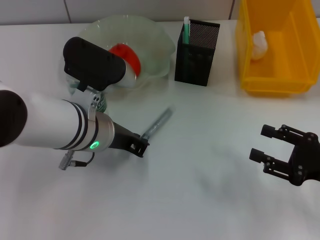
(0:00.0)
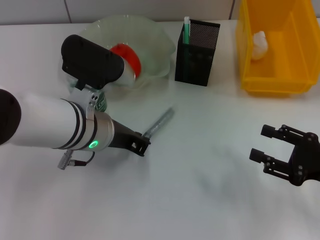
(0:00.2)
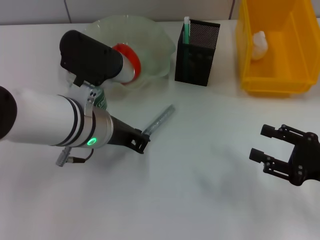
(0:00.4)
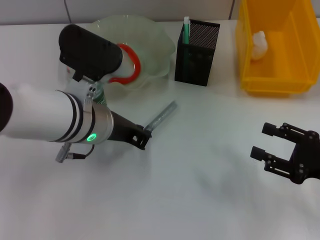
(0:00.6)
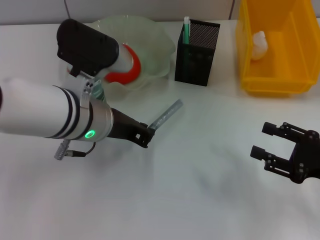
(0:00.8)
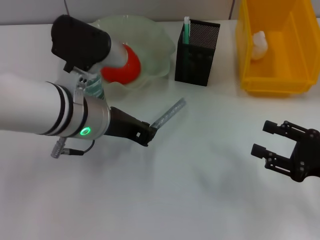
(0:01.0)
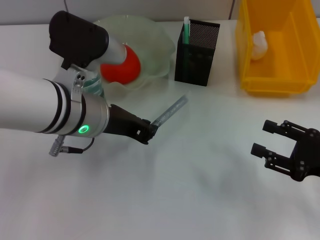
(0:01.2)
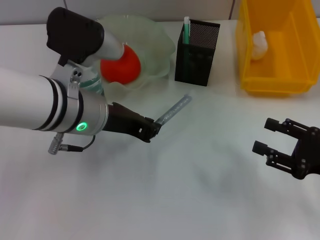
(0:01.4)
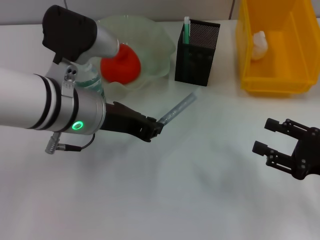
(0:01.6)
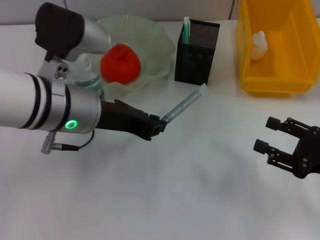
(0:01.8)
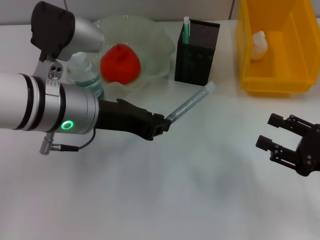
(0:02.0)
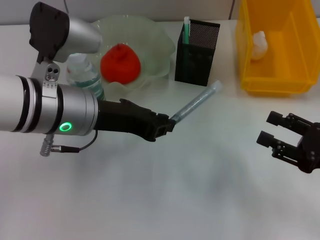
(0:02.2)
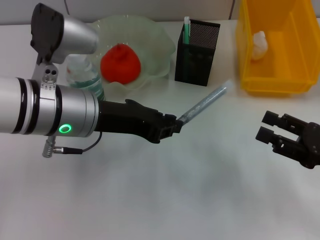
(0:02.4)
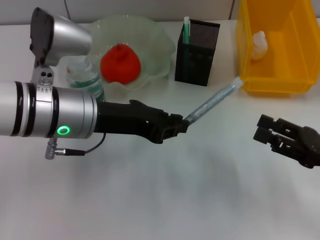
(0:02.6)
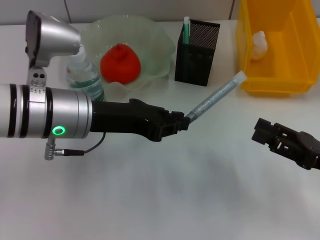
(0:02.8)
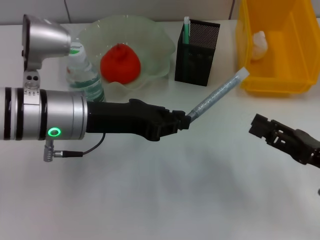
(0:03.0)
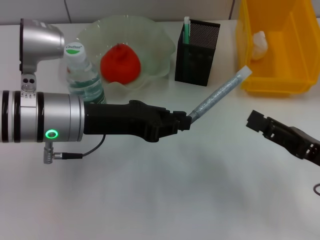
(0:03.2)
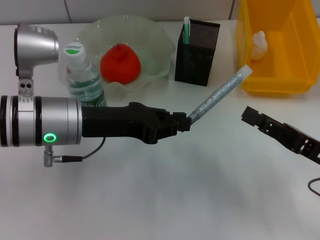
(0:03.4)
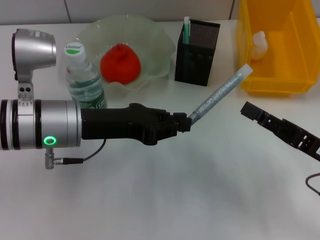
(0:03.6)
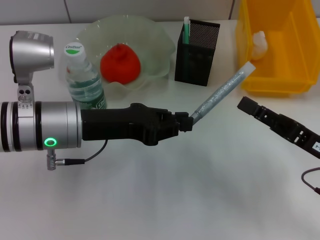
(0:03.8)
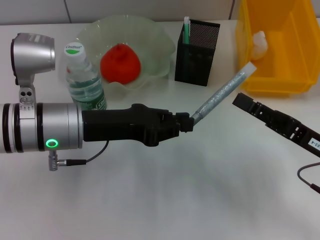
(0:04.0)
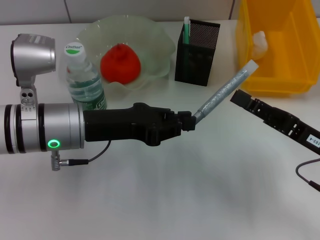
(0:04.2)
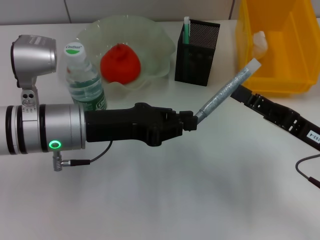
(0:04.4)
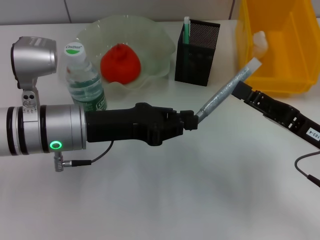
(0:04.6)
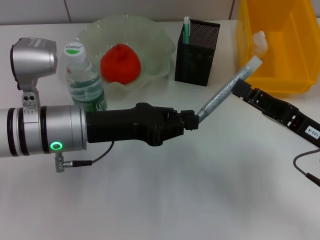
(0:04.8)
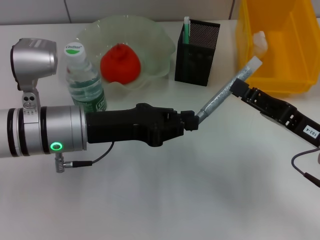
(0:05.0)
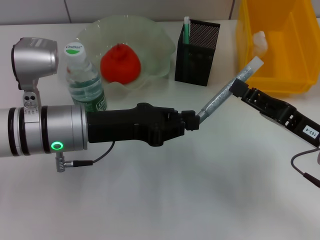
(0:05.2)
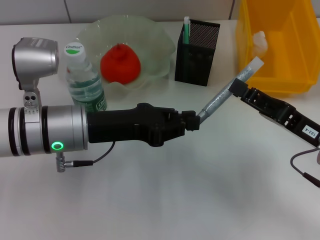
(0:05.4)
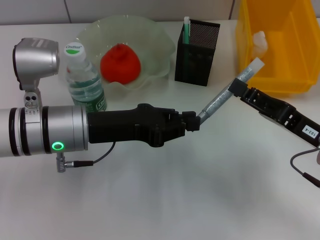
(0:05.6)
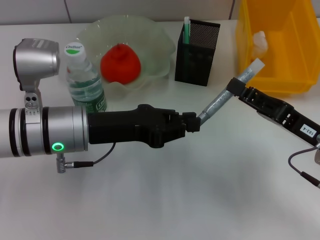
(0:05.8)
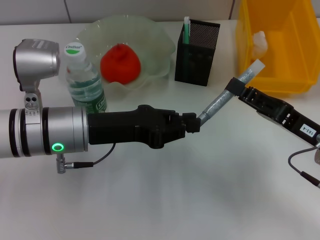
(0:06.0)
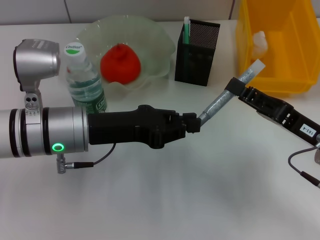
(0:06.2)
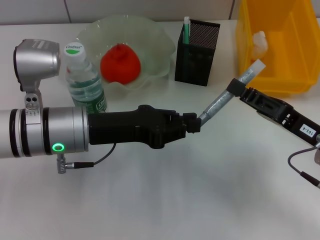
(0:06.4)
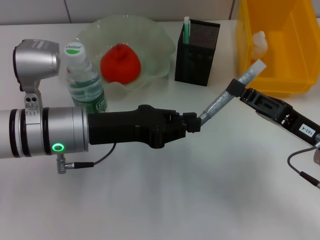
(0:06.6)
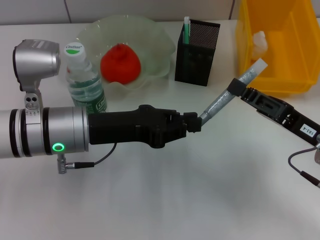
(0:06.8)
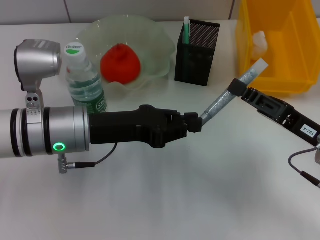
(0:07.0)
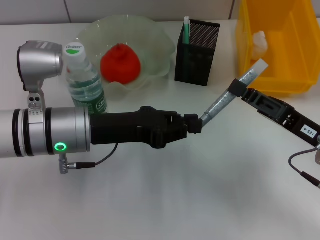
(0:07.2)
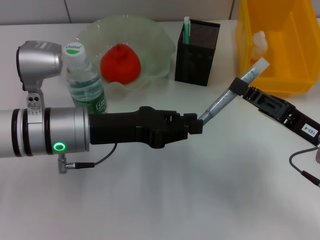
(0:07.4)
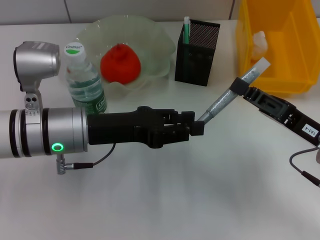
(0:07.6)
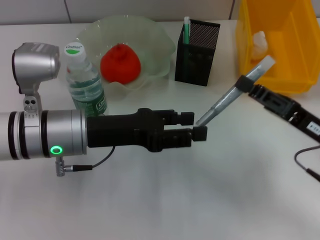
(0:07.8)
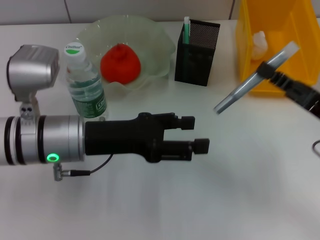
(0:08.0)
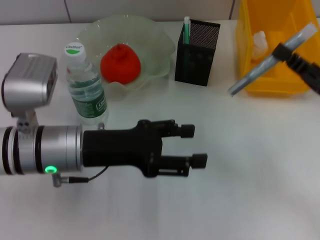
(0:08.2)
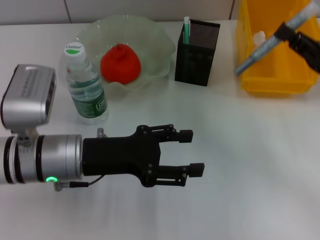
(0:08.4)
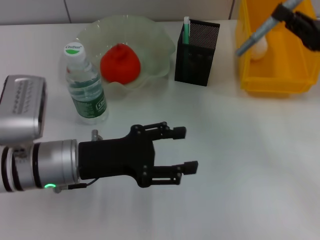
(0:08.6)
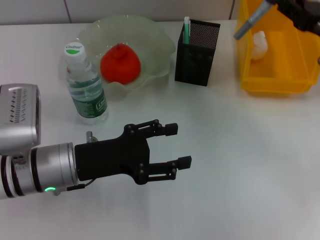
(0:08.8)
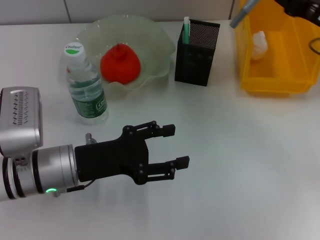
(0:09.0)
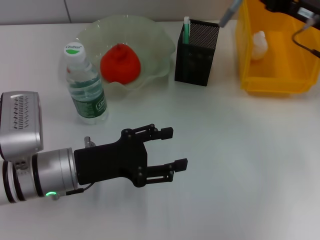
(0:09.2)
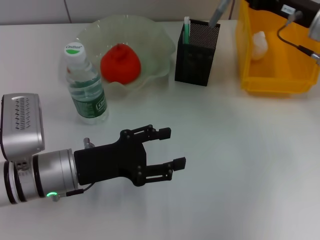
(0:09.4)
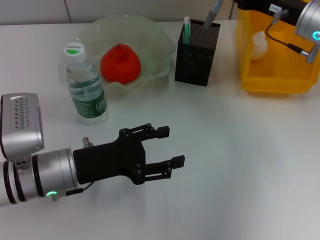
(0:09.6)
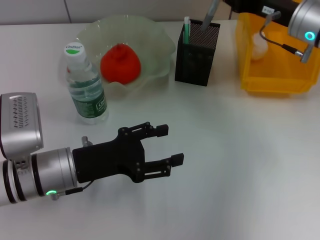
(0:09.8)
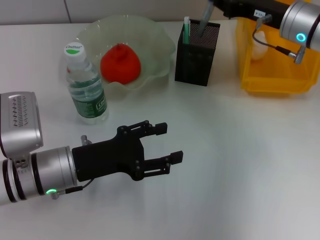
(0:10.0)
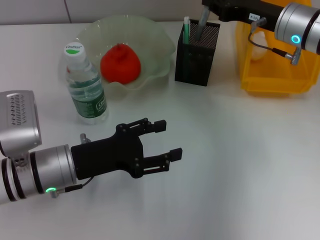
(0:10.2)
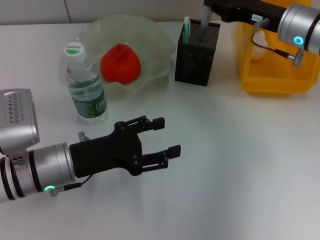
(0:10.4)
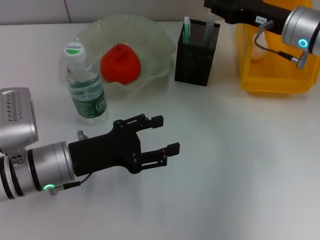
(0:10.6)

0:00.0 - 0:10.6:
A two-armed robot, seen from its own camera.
Step, 0:00.0 - 0:07.4: Pass the gray glue from the left hand to the right hand.
0:00.0 - 0:01.6: The grippers stay close to where they were, moving slightly.
0:03.0 - 0:04.6: The grippers move only a little.
0:04.6 - 0:06.0: The right gripper closes up.
0:06.0 - 0:07.6: The right gripper closes.
0:07.6 - 0:09.0: The right gripper is displaced forward and upward by roughly 15 cm, while the left gripper heads downward, covering some 5 cm, and opens up.
0:09.0 - 0:10.6: The right gripper is displaced to the left by about 5 cm.

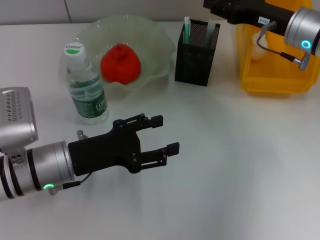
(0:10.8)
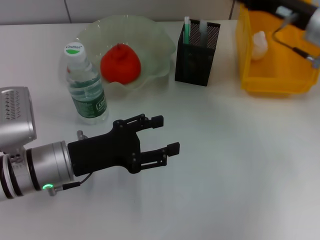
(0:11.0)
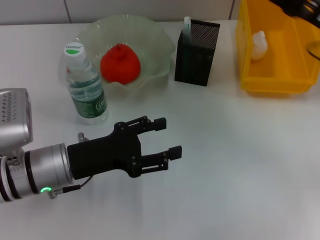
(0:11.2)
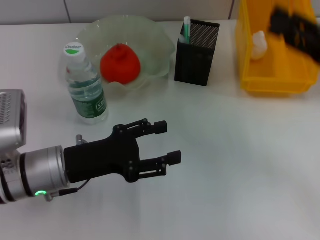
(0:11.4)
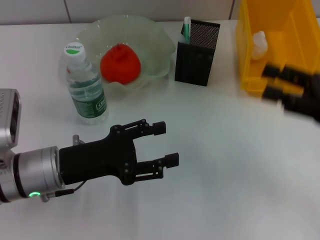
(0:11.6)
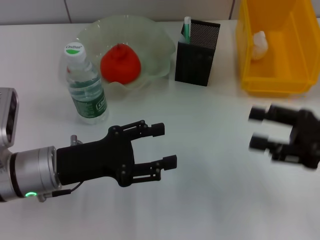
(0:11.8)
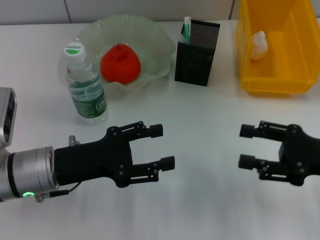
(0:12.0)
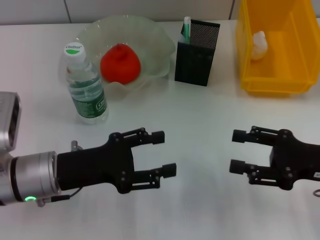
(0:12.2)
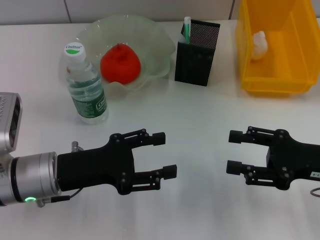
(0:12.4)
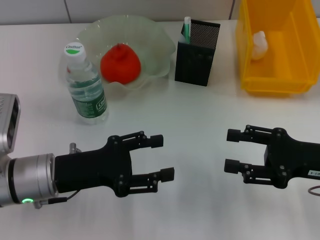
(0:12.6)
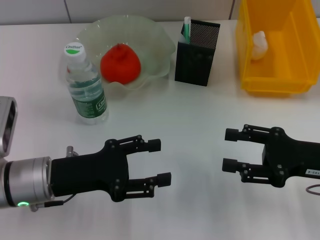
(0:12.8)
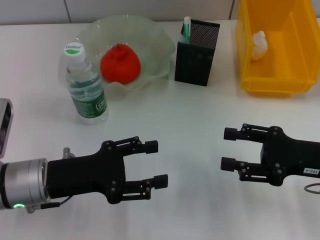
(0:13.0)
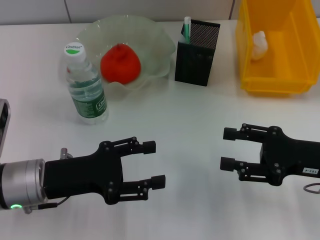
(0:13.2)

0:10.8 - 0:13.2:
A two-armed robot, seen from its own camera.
0:10.8 - 0:12.0: The right gripper heads backward, covering approximately 15 cm, and opens its fingers.
0:12.0 - 0:13.2: The grippers make only small movements.

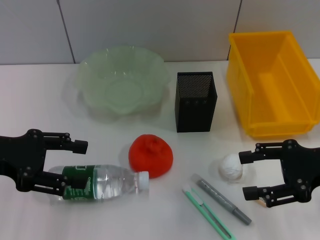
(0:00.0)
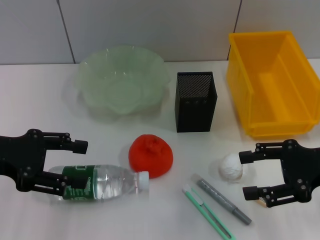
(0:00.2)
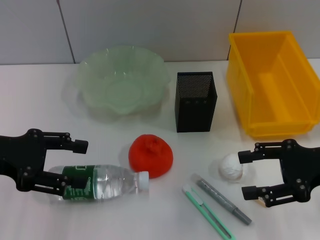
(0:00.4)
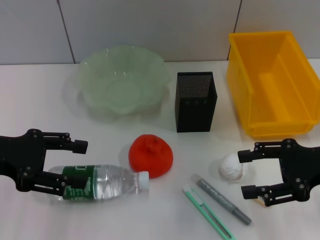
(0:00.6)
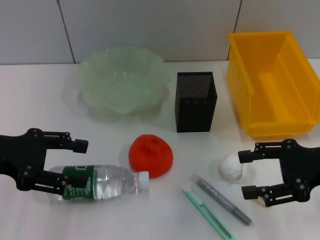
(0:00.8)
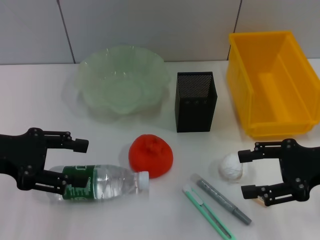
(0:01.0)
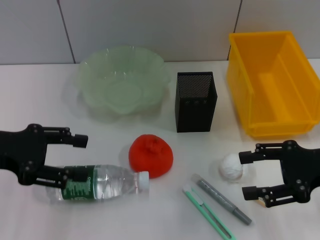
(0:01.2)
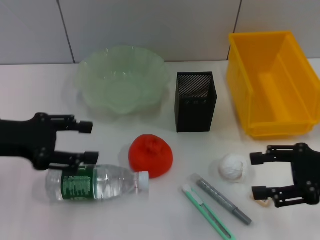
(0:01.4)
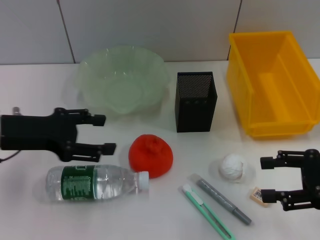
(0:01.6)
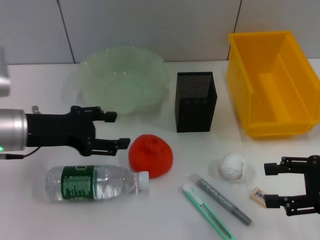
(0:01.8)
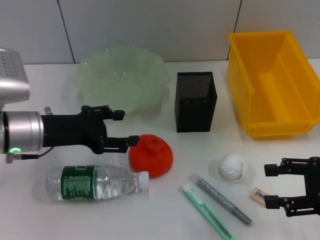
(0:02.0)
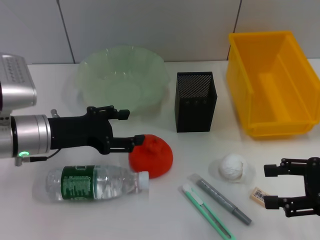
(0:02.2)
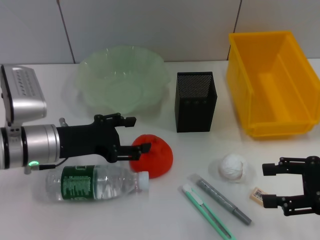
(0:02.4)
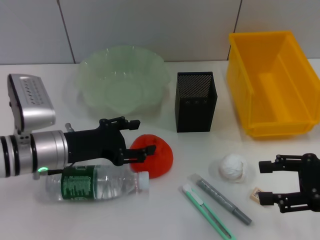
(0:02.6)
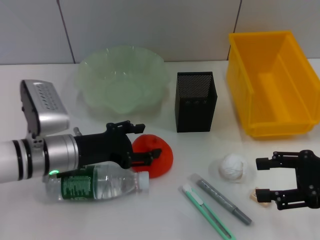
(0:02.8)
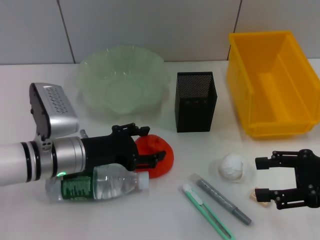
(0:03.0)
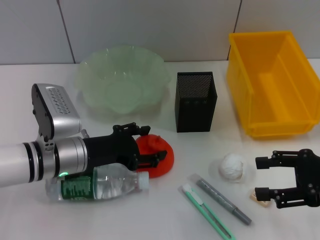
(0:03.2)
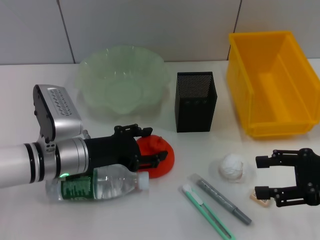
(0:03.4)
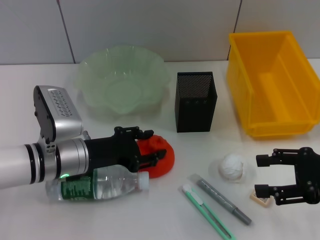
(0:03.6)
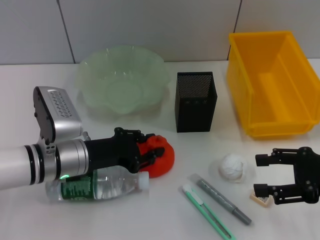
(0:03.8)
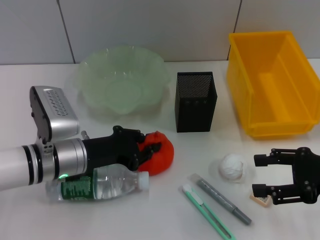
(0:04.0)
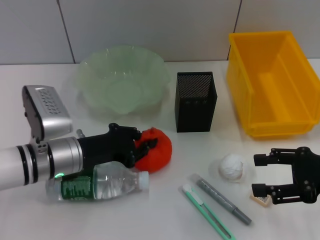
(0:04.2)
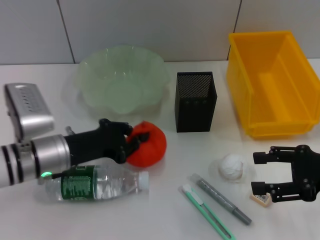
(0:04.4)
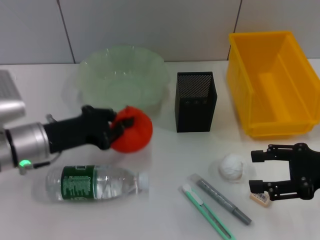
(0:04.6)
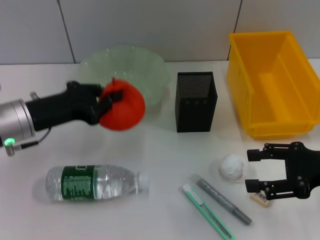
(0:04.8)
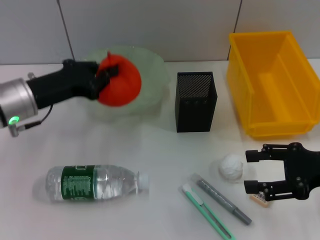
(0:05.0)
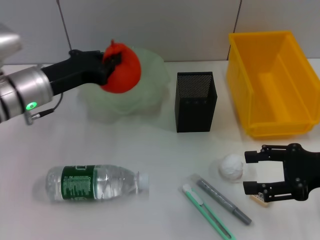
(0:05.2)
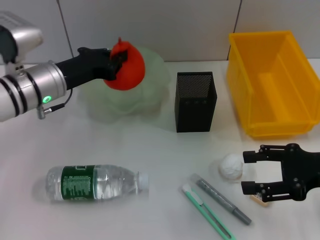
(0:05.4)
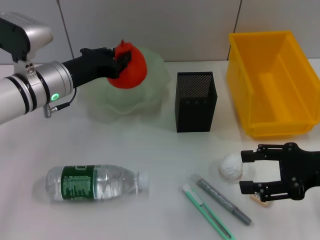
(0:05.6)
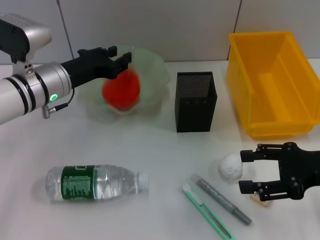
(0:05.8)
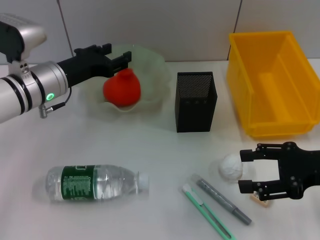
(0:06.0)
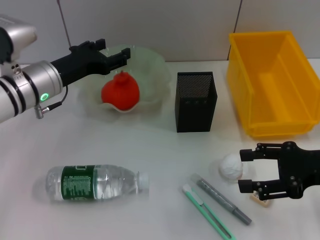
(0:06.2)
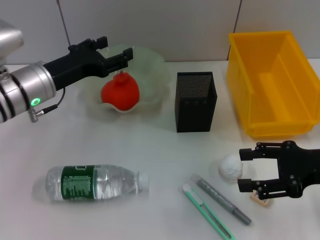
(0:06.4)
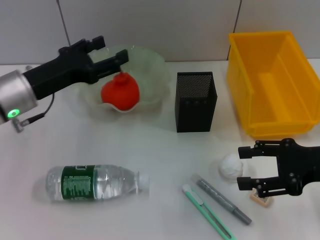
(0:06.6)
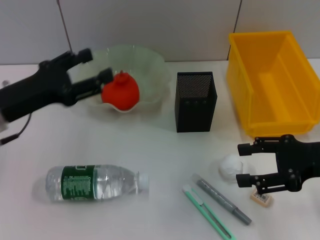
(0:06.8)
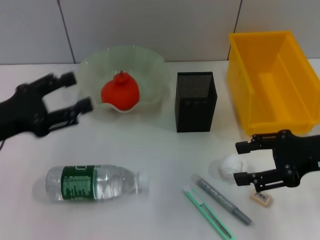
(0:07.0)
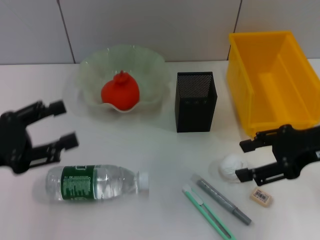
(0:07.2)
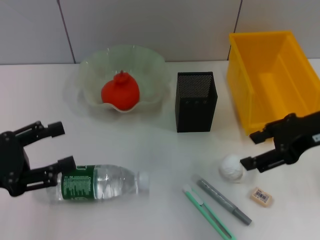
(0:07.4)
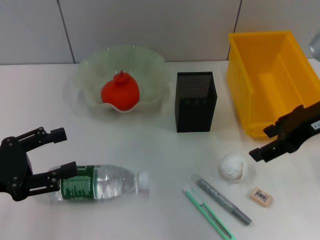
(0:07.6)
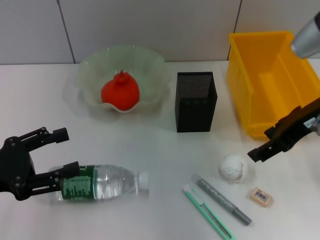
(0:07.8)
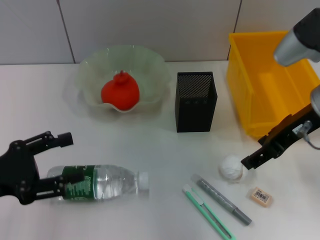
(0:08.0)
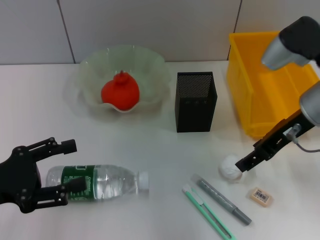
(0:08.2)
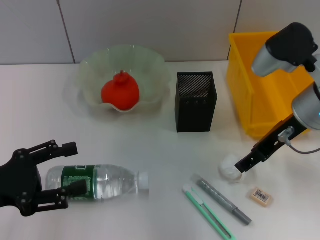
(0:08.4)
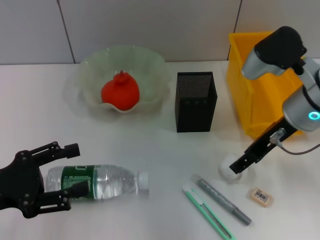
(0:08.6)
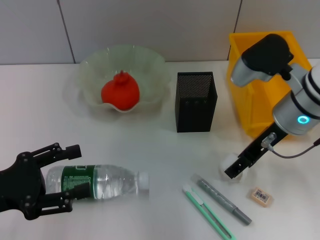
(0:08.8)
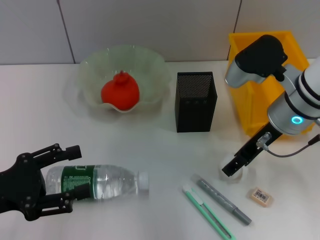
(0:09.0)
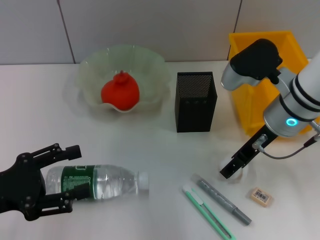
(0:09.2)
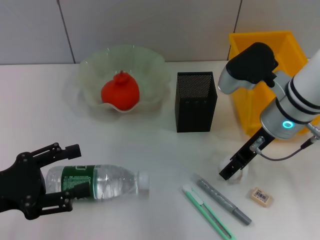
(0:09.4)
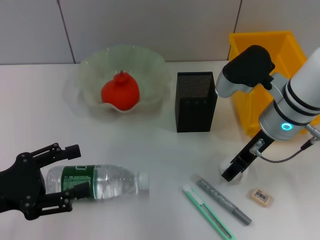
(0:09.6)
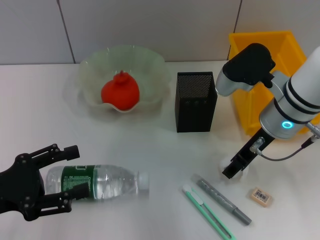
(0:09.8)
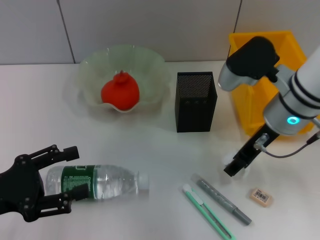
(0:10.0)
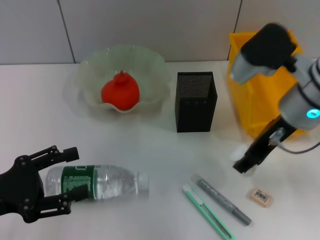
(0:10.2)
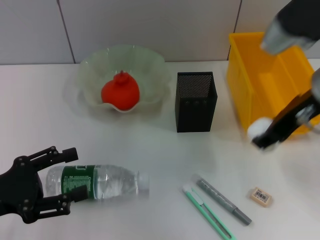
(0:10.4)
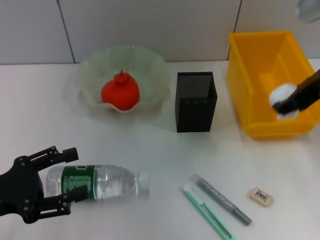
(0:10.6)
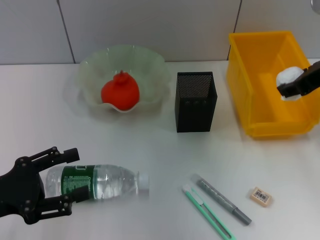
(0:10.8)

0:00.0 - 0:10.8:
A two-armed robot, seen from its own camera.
Step, 0:00.0 - 0:04.0: Grab the orange with the left hand.
Step, 0:04.2 - 0:06.0: Place the orange into the fruit bowl with the left hand.
Step, 0:06.2 - 0:09.8: Grab the paper ball with the right hand.
0:00.0 - 0:01.6: The left gripper moves some 5 cm.
0:01.6 - 0:03.0: The left gripper goes some 10 cm downward and to the right.
0:03.0 - 0:04.6: The left gripper moves approximately 5 cm, and closes its fingers.
0:04.6 - 0:06.2: The left gripper travels forward by approximately 10 cm, and opens up.
0:06.2 - 0:07.8: The right gripper shifts approximately 15 cm upward, to the left and forward. The left gripper moves backward and to the left, roughly 20 cm.
0:07.8 - 0:09.2: The right gripper is displaced downward and to the left by about 10 cm.
0:09.2 - 0:10.8: The right gripper moves upward and to the right, about 10 cm.
